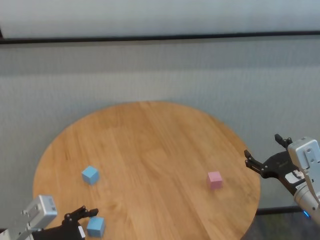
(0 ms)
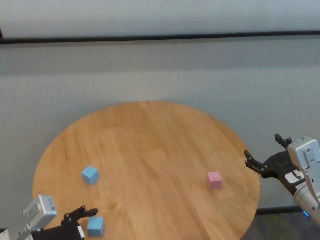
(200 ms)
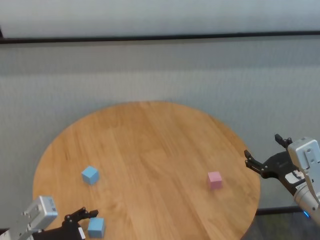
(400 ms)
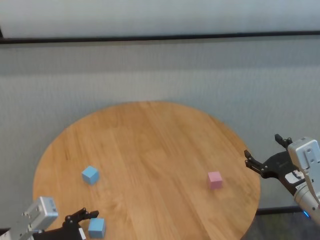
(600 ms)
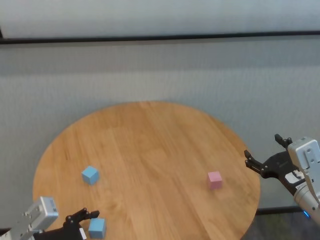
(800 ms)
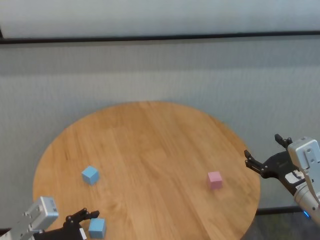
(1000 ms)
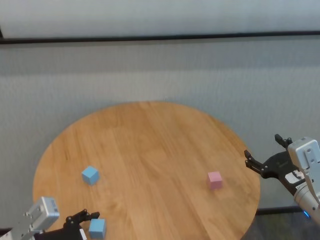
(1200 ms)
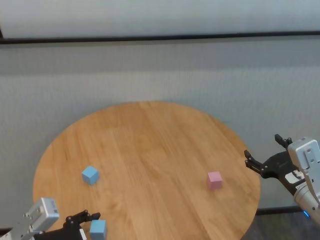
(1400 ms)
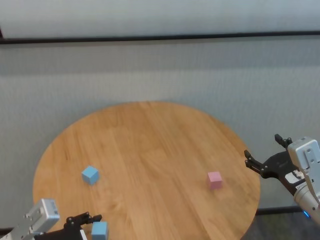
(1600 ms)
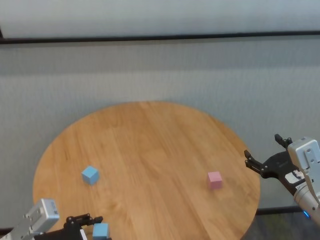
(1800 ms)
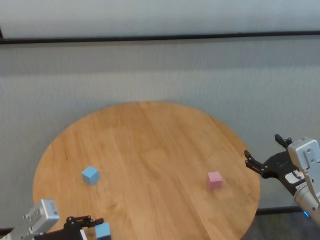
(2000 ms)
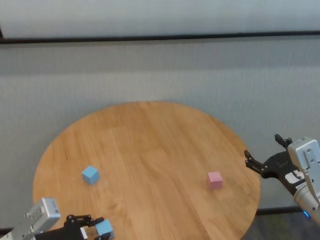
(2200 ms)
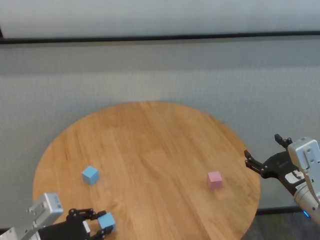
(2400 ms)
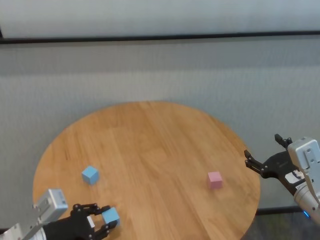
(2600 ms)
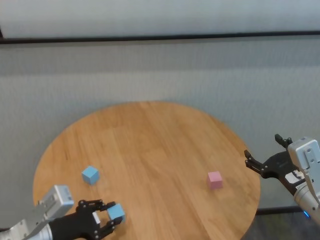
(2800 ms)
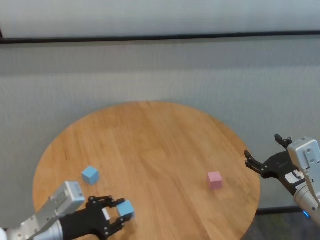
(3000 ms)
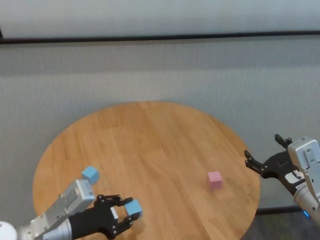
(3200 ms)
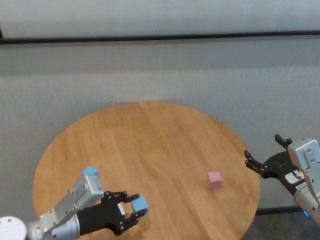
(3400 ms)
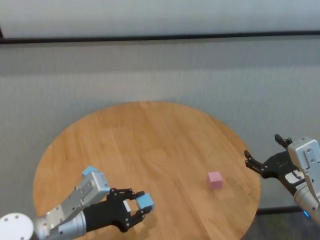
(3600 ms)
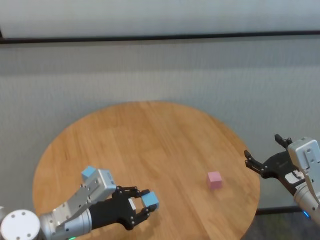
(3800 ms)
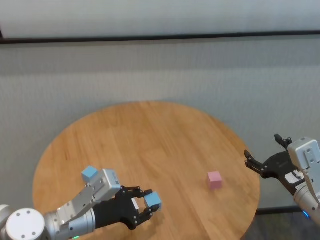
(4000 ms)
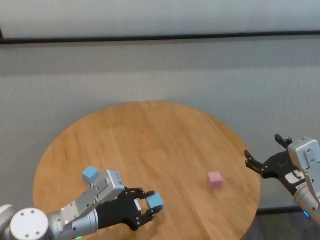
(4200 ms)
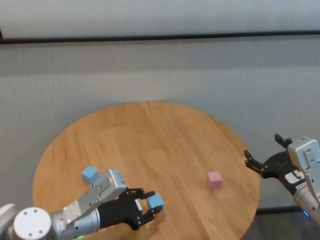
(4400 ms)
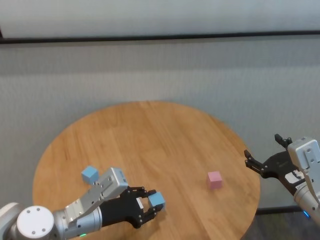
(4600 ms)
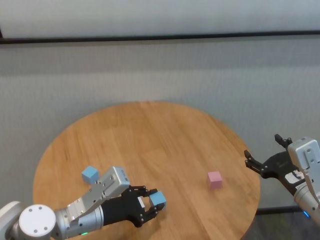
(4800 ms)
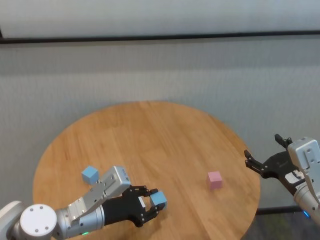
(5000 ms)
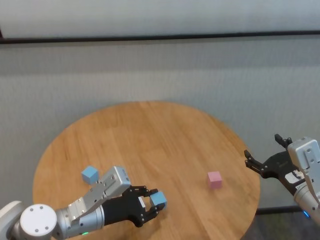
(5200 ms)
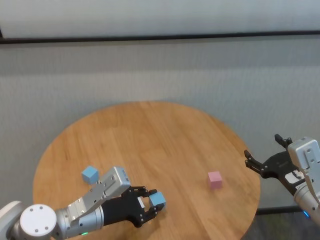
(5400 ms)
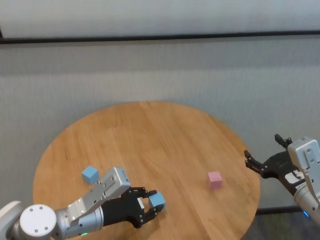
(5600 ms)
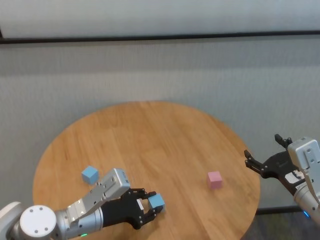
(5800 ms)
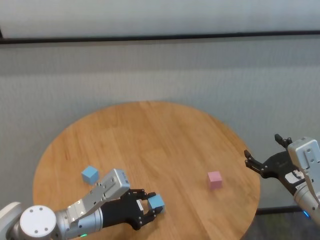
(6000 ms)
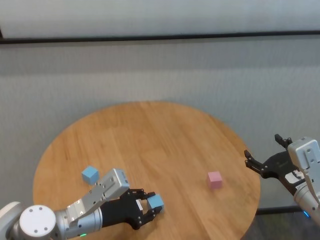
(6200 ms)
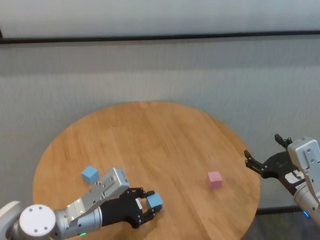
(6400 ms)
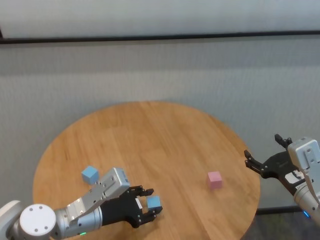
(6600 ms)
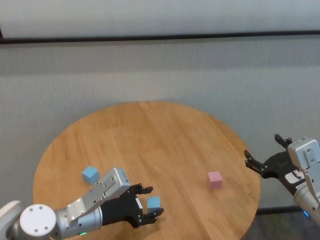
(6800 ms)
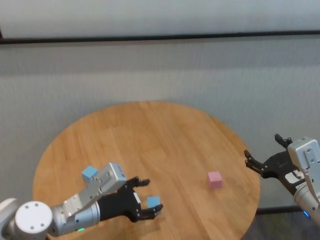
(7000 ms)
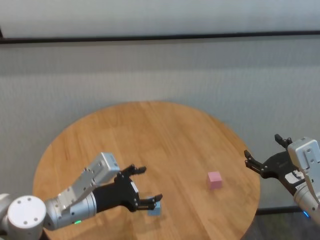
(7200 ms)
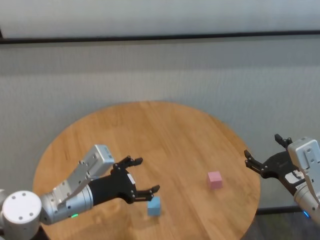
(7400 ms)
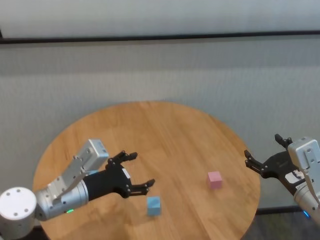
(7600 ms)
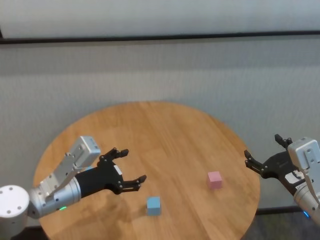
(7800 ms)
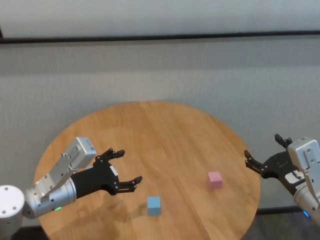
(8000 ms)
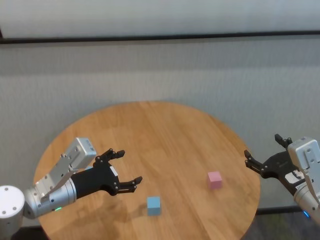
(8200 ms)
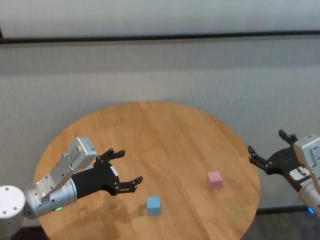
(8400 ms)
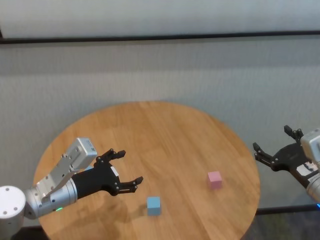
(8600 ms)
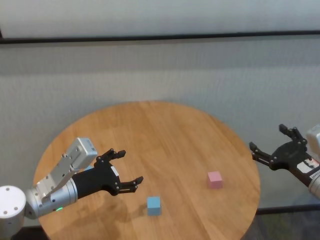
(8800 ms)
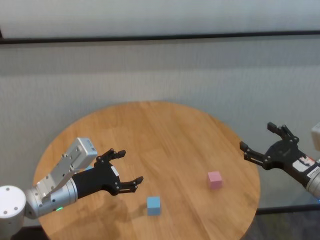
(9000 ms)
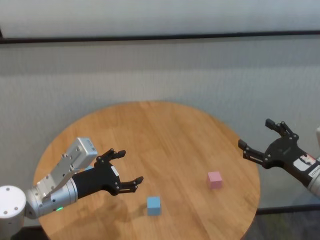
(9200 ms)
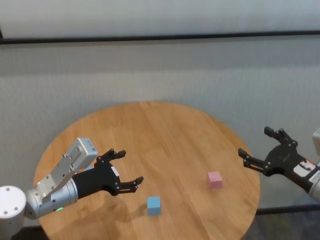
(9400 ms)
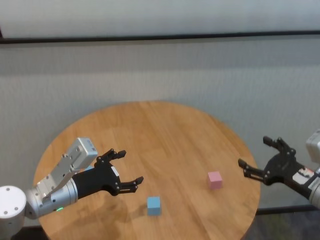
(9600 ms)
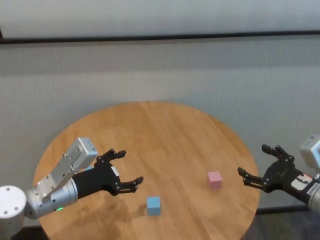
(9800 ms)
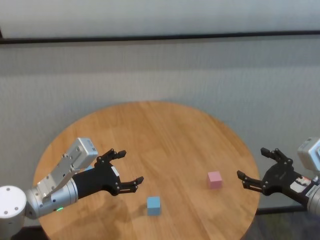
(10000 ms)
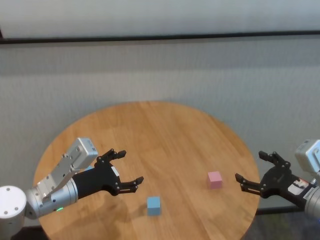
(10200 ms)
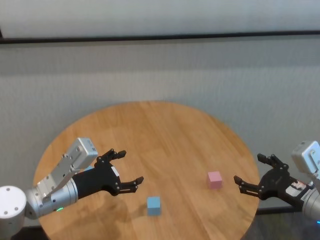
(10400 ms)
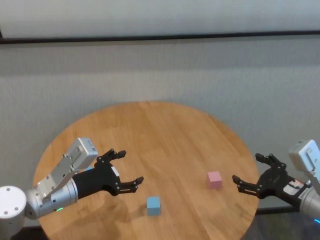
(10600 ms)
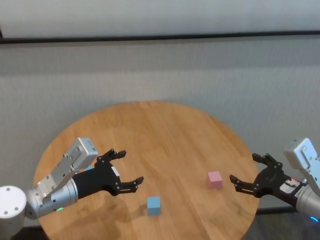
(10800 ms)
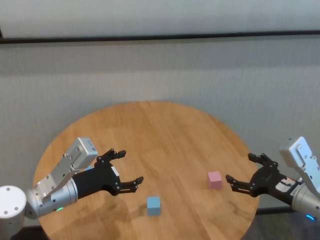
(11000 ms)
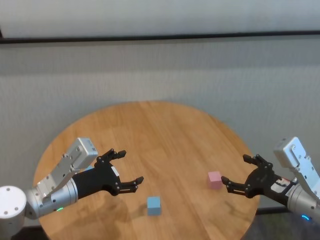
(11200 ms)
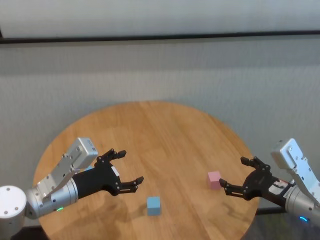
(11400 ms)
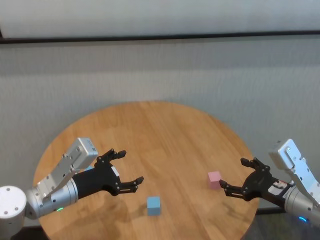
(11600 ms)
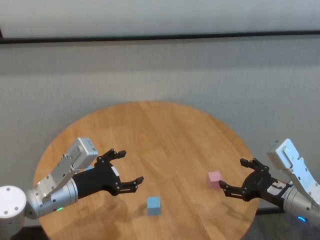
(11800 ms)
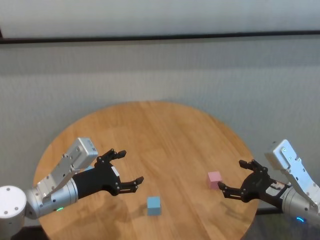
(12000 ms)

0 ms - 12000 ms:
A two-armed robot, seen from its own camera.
Task of the whole recording: stack building blocks on the table.
Step, 2200 ms - 6800 ms: Place the blue building block in the center of table with left gripper.

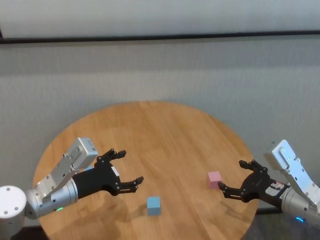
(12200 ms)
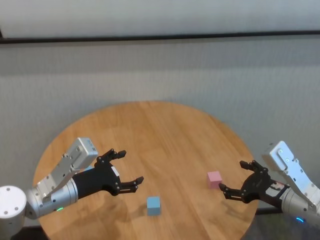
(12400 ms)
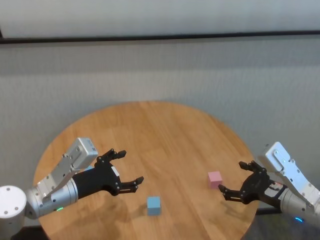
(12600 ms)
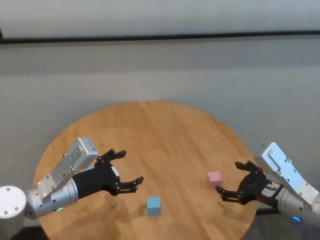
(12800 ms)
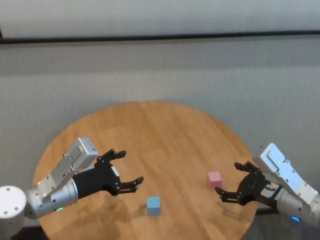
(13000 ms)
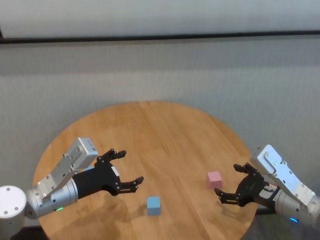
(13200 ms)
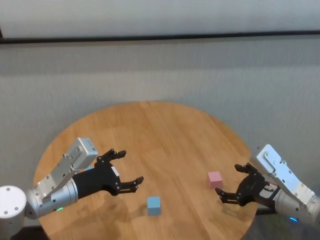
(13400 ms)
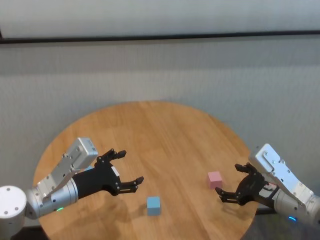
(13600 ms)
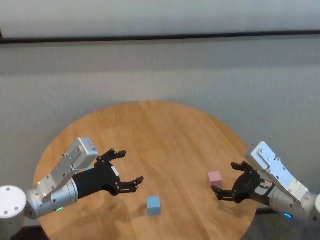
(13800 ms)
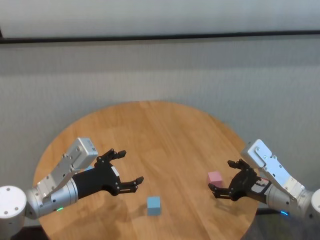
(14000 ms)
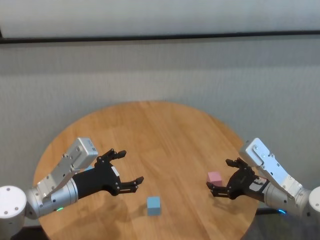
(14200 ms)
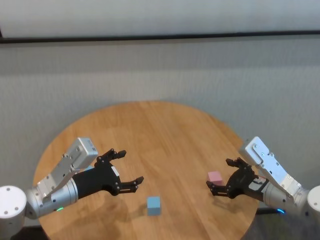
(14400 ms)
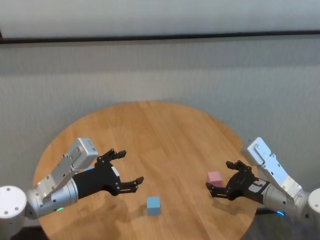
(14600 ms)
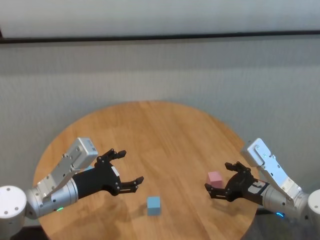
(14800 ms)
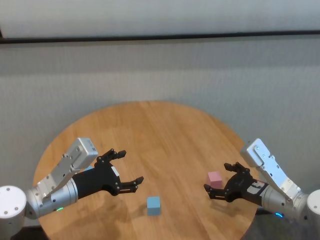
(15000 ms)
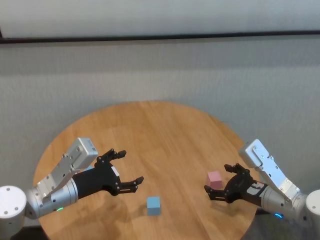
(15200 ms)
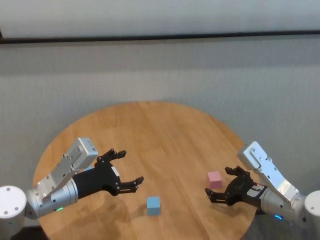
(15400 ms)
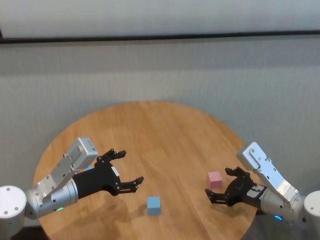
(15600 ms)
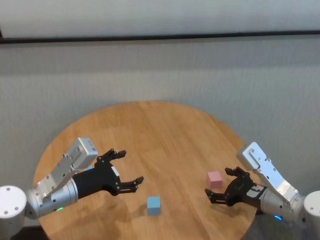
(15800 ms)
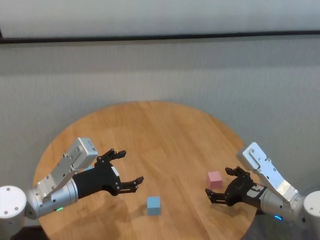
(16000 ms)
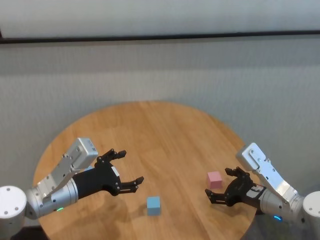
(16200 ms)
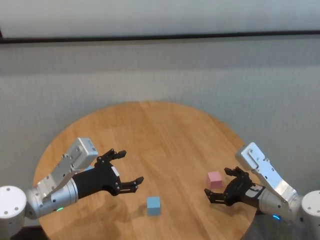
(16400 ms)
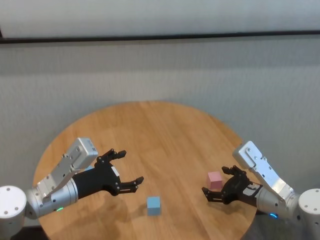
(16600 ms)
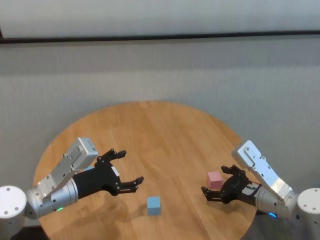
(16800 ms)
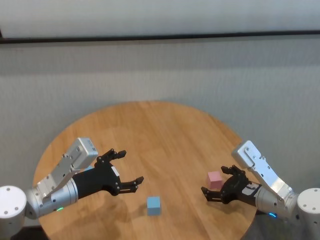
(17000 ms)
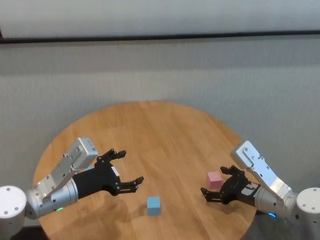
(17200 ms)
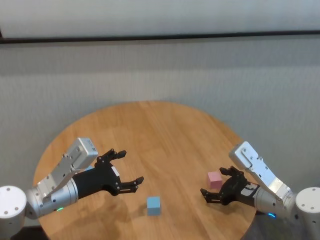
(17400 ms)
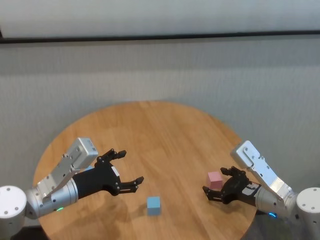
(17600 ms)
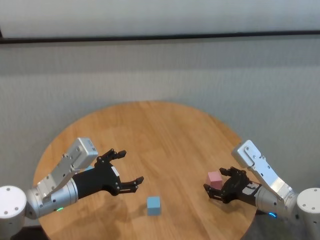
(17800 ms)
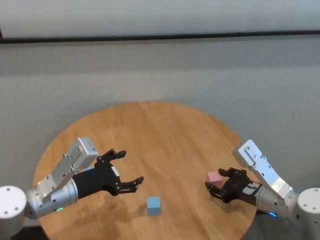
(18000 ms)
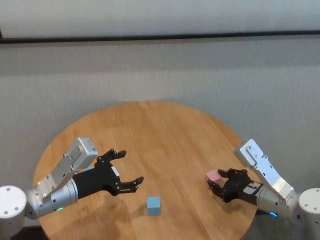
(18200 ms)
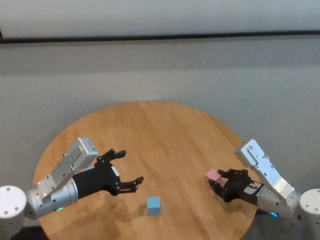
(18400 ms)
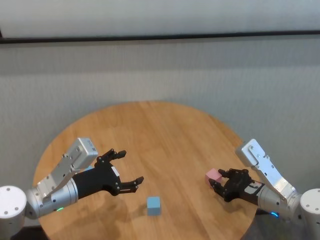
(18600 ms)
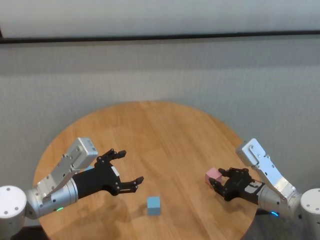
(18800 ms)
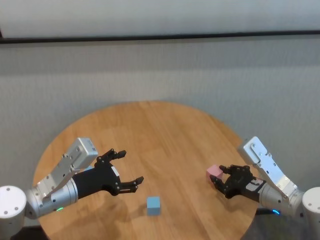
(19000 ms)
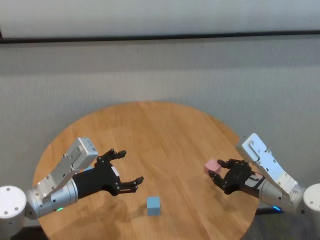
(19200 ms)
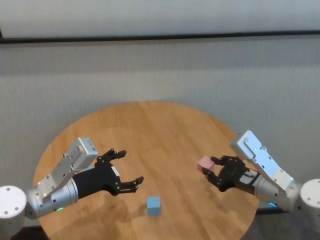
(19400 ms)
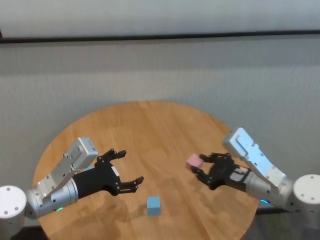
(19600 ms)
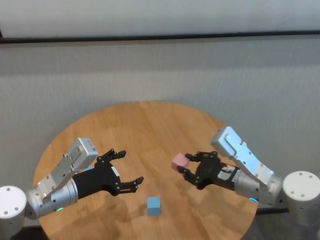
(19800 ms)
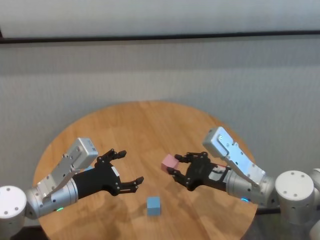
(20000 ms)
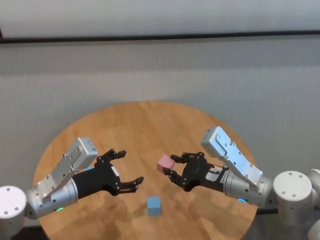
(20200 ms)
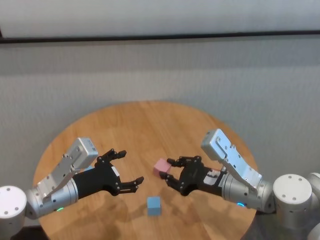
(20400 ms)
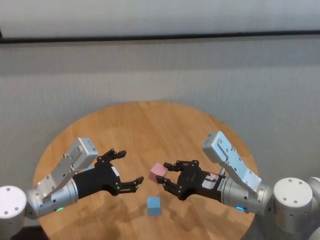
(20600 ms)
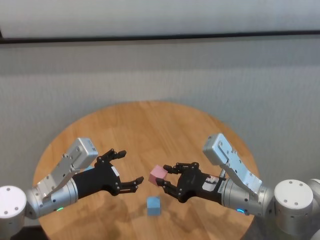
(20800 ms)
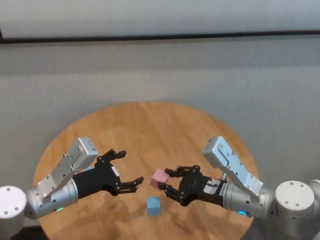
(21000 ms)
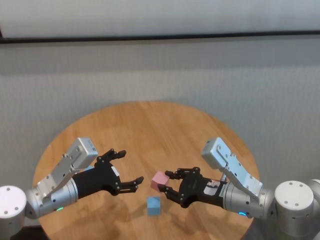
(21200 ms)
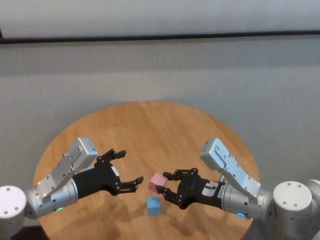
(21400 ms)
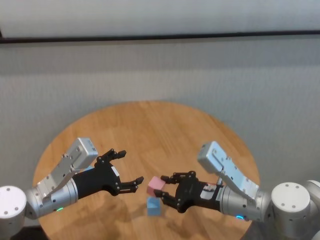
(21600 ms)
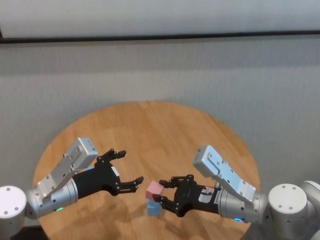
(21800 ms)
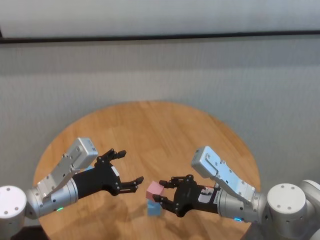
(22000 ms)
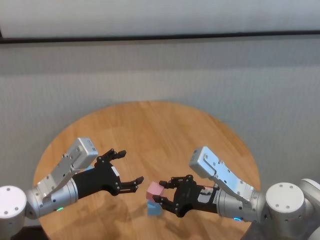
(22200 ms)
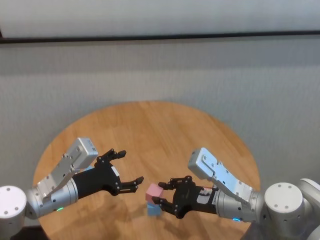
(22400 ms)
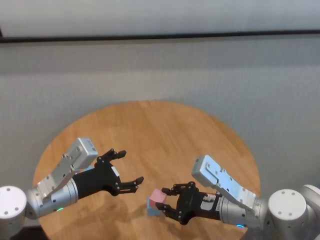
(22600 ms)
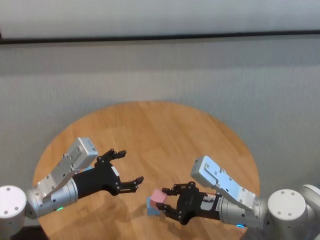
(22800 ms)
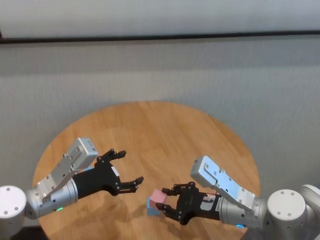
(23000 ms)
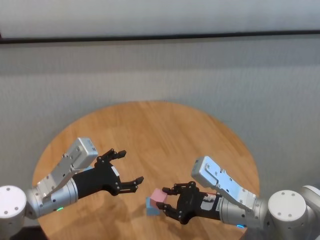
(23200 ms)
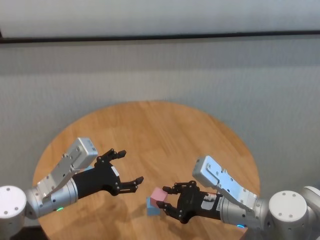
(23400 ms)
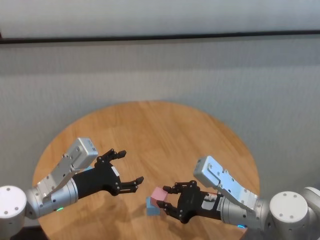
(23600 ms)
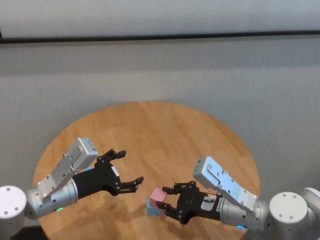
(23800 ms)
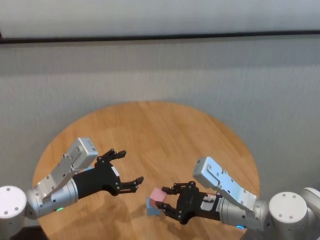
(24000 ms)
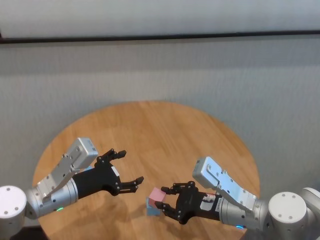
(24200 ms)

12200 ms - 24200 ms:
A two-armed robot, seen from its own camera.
Task of the whole recording: stack building blocks on the table.
Step, 12200 ms - 18400 ms: Grasp the pink building block with right gripper.
